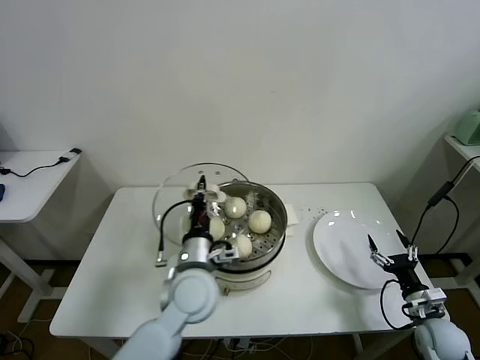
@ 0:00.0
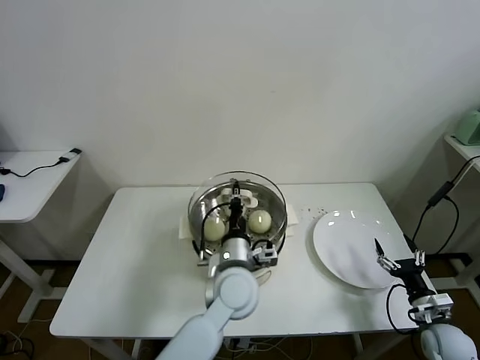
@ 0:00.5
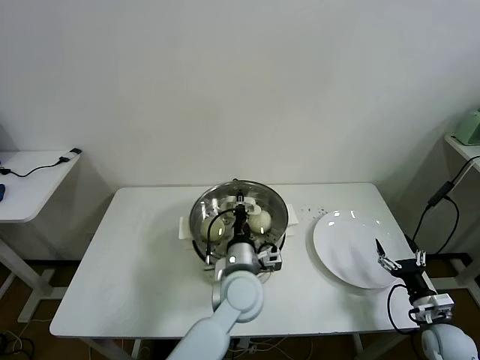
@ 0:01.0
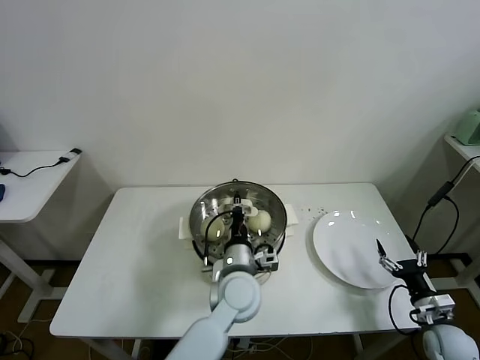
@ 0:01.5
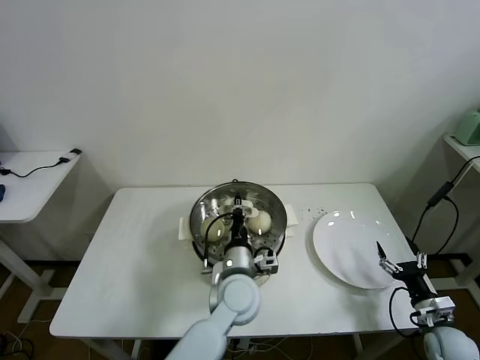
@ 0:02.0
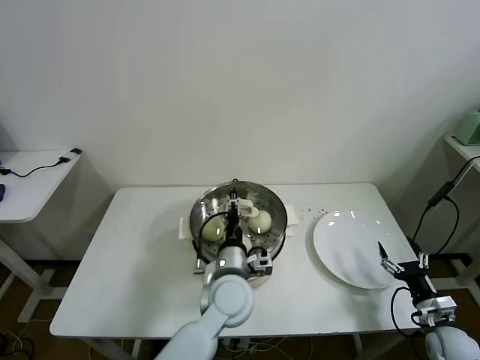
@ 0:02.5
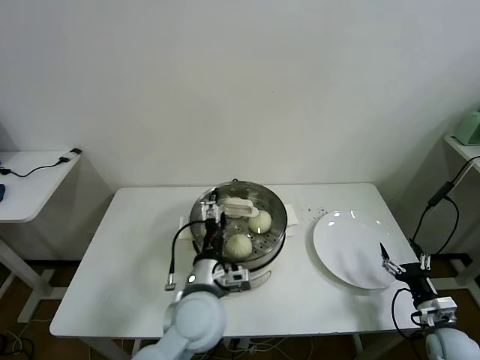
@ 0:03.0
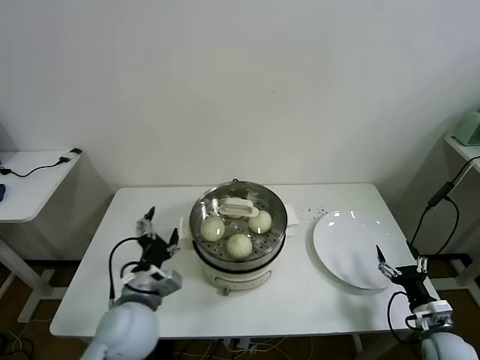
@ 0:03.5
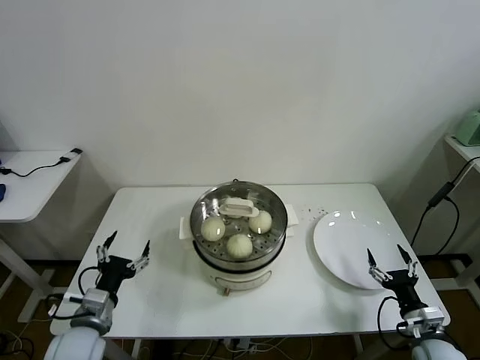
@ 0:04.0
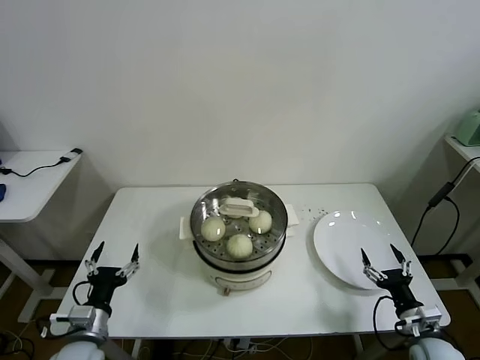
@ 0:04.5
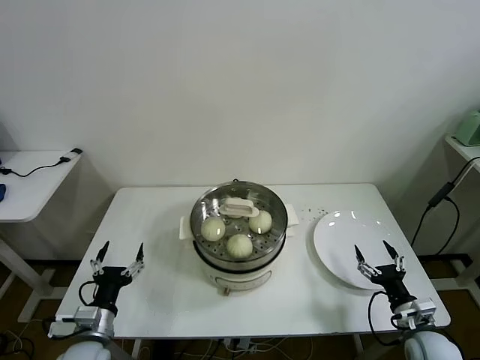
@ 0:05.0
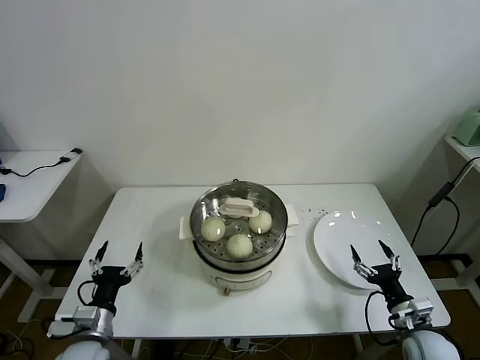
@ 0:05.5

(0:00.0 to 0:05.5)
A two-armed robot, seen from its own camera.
Task of the whole recording: take steamed baozi put them in steamer then cover it.
Step, 0:00.0 - 0:02.0: Place the pot lid on the steamer with left gripper.
0:00.0 - 0:02.0: The left gripper shifts some 10 cm to the right and downward.
0:02.0 - 0:03.5: The left gripper is displaced to the left and backward by roughly 20 cm, and opens.
0:03.5 - 0:05.5: The right gripper is displaced to the left by approximately 5 cm, while the left gripper moves to the left and downward, approximately 20 cm.
